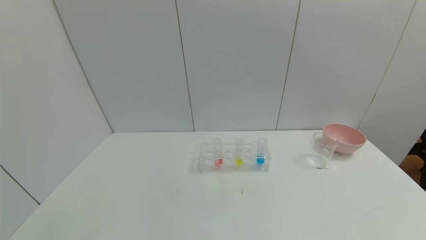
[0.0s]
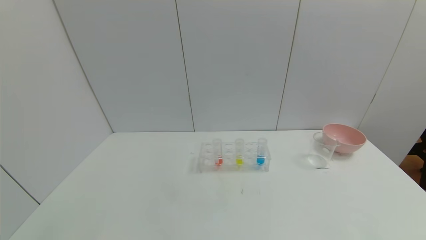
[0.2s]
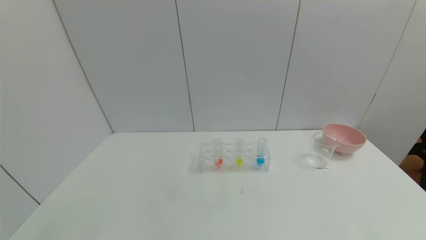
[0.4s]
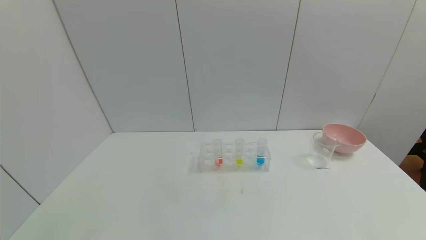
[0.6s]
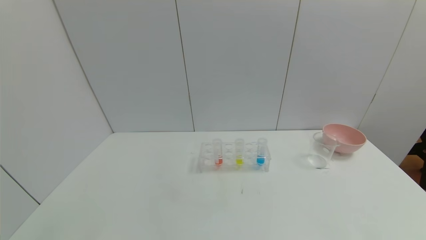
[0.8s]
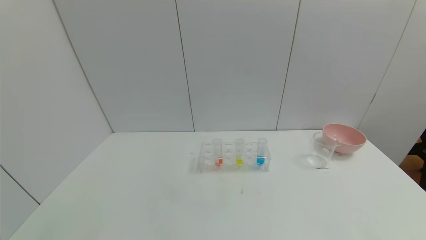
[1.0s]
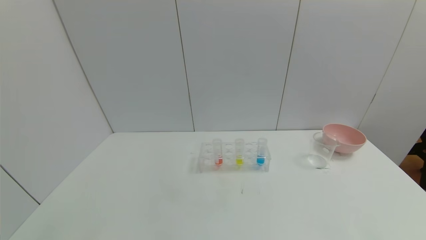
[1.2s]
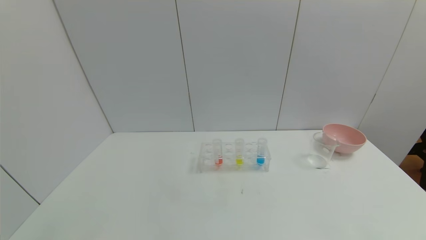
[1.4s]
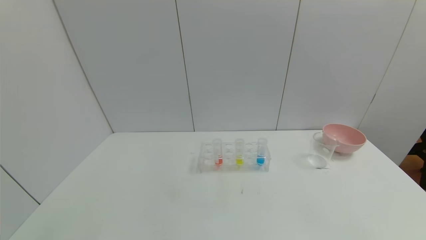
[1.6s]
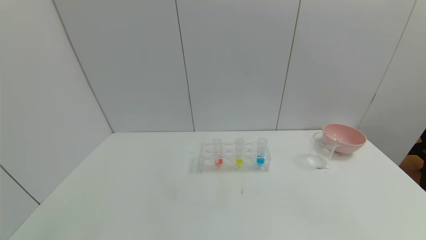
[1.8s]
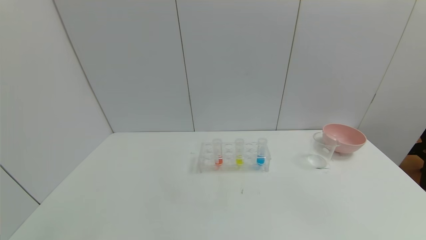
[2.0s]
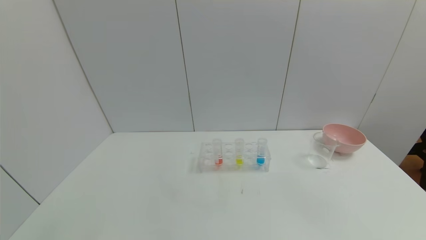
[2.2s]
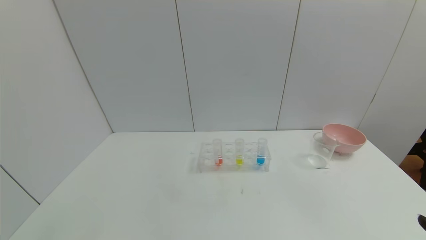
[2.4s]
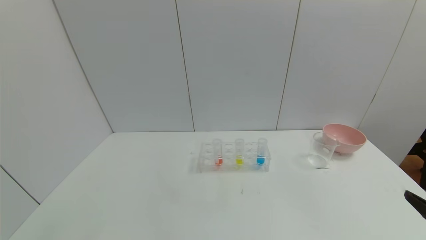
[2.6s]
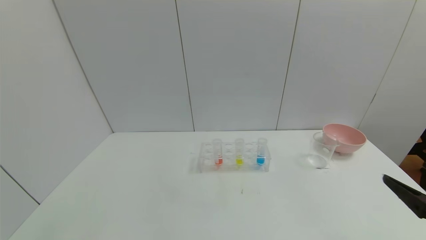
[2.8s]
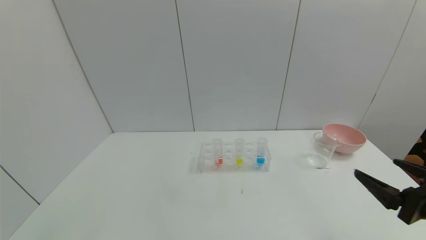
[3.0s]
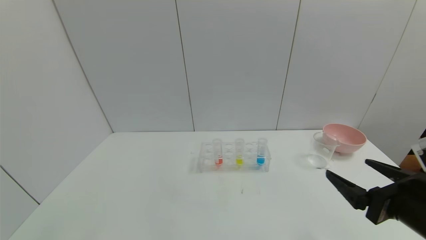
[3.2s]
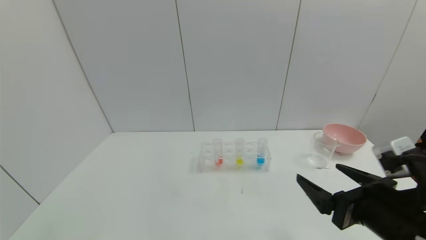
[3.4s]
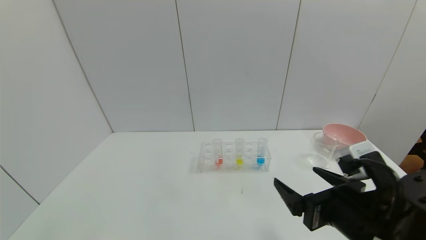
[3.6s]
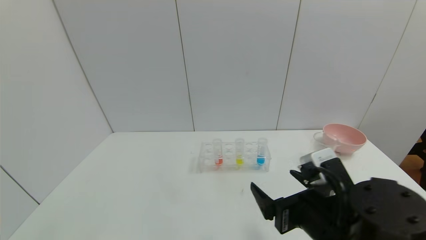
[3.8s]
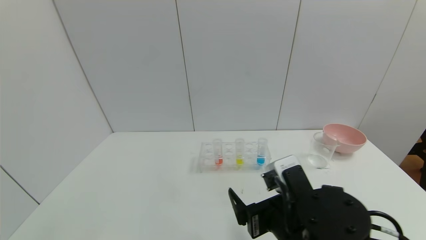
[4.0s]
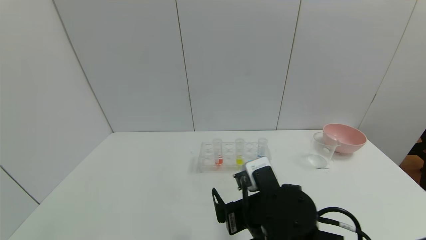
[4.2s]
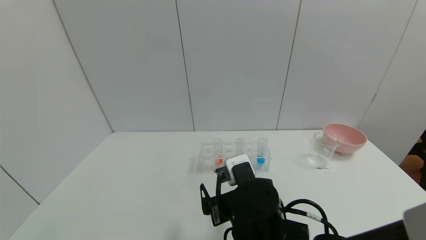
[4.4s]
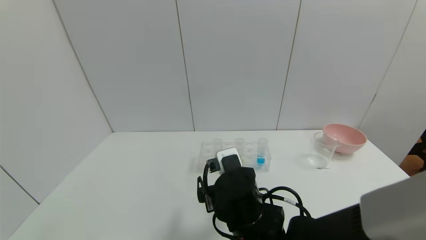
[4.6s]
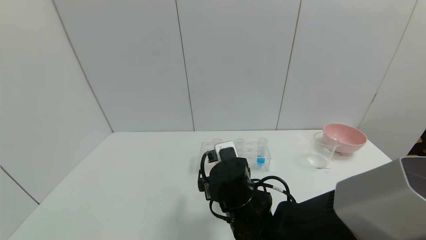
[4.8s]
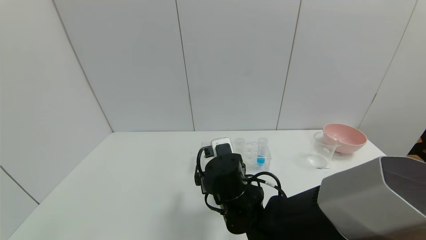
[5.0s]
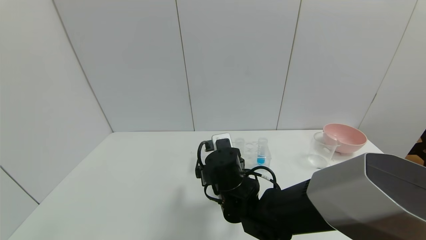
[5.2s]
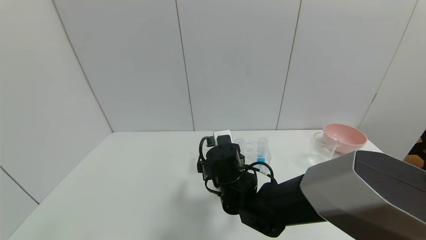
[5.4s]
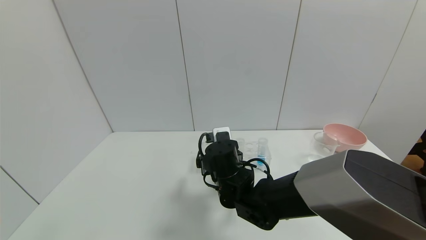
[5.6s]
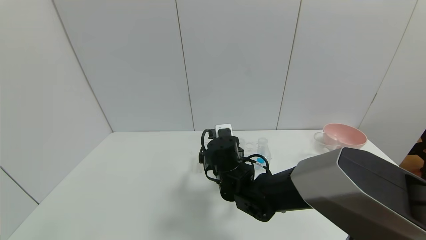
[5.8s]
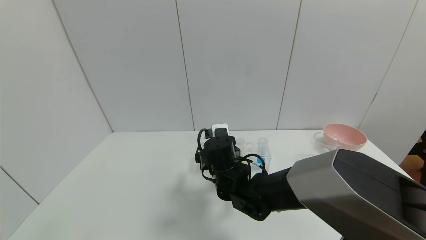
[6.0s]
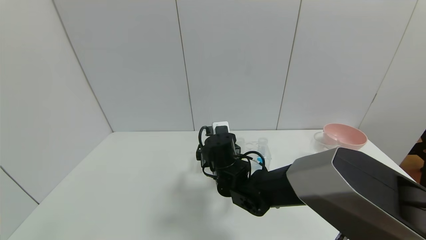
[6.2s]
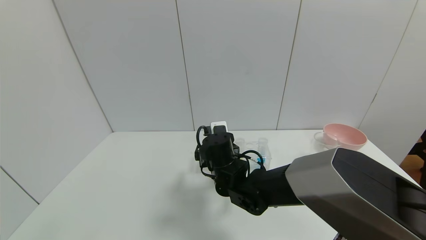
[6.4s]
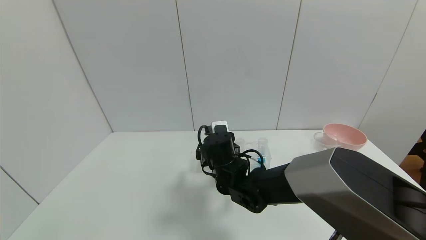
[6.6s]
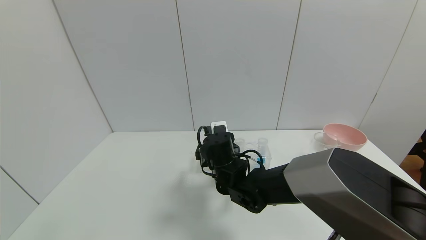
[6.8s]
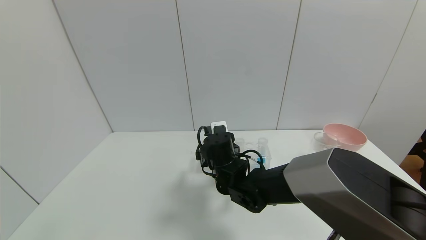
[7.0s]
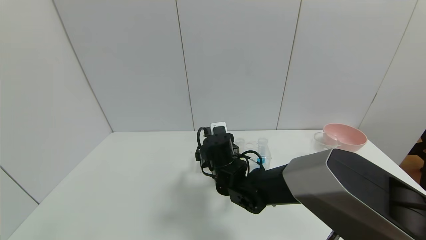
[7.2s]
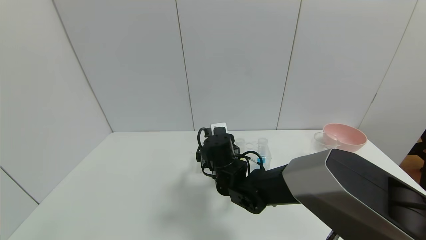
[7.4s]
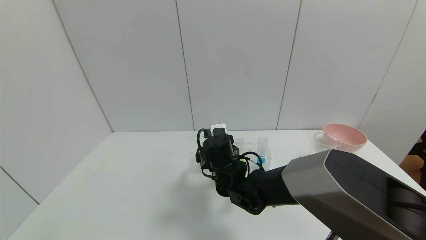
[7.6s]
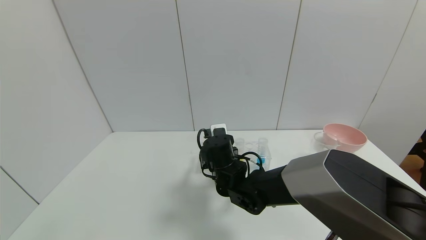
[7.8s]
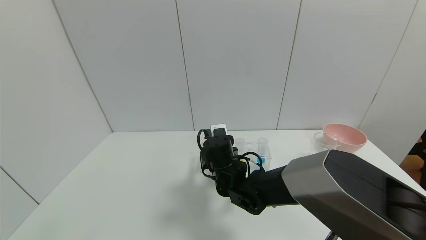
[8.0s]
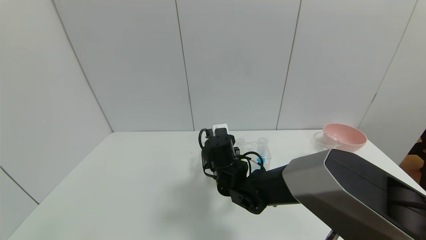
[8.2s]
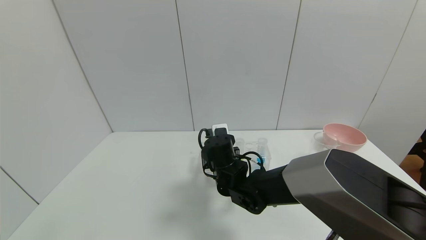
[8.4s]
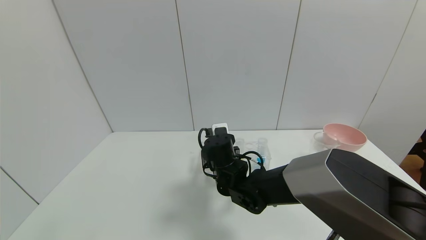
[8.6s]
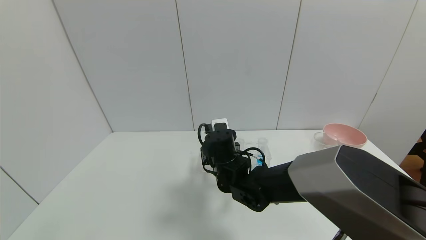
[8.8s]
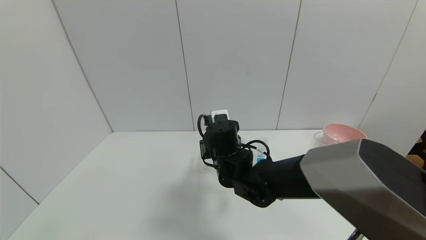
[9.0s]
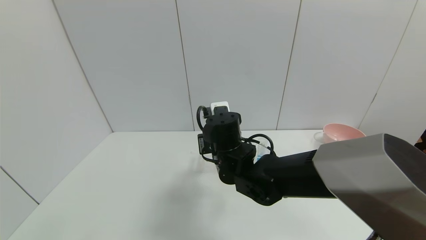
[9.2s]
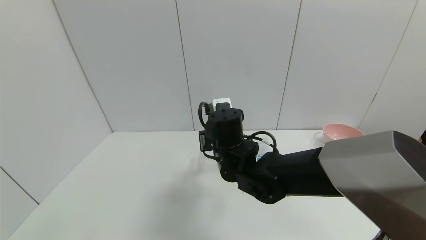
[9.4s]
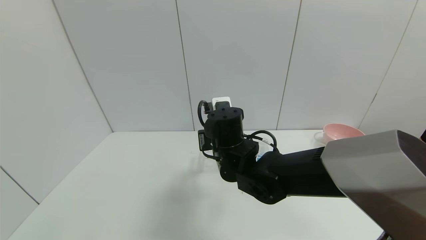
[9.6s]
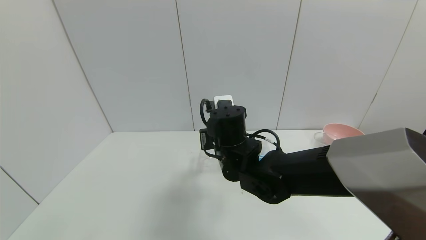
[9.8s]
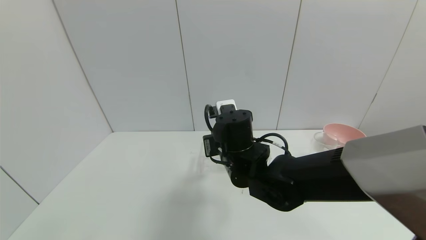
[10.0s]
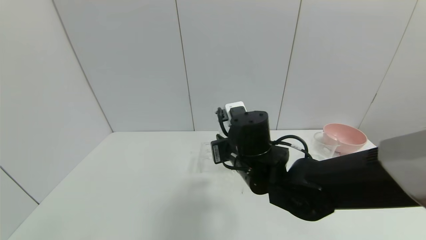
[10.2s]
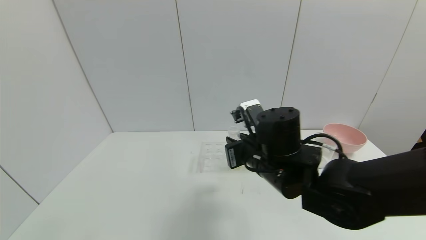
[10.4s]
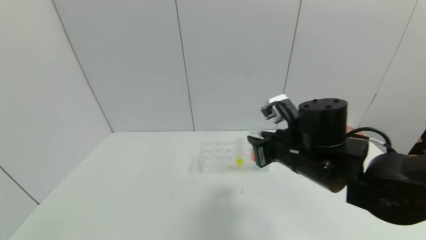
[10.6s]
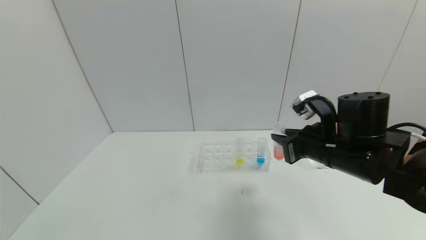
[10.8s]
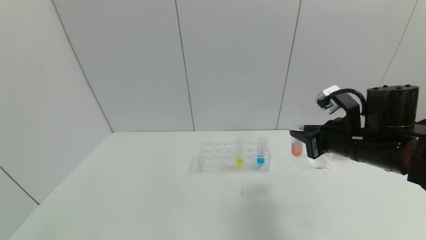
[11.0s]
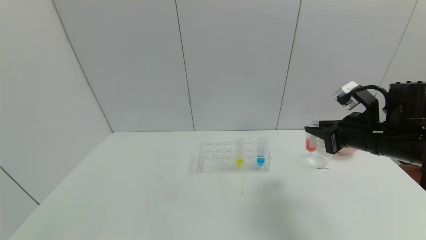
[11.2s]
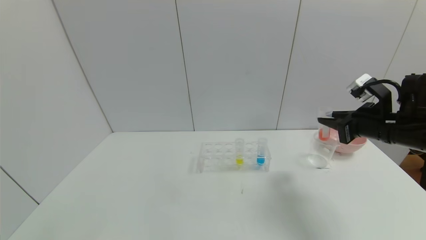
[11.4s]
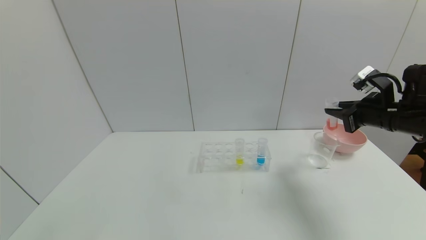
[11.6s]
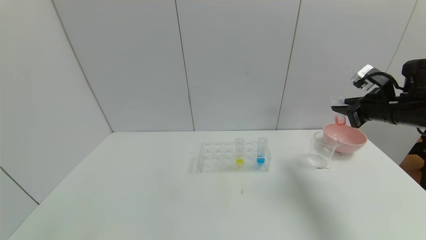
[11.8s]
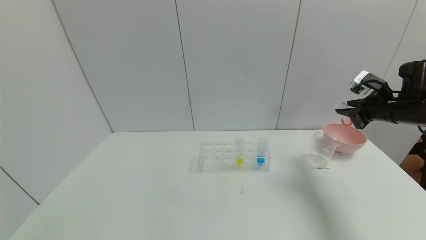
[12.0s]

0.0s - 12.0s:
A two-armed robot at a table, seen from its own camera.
Task of the whole recording: pick up the test tube with red pigment and the test tube with blue pigment by grippers and pour them into the container.
Step, 0.0s - 8.2s: Grasp the red reagent with the right gripper.
1.6s - 3.0s: The right gripper shifts roughly 15 cm forward.
3.0s - 4.4s: The right gripper travels to the left by roughly 25 cm.
4.4s - 6.0s: The right gripper shifts some 15 cm forward.
6.0s - 7.6s: Both grippers stay about where they are.
7.6s - 9.0s: The right gripper closes its fingers.
9.0s - 10.4s: The right gripper is displaced to the right, backward and upward by approximately 10 cm.
10.4s - 12.0s: The right gripper goes some 30 cm to the right.

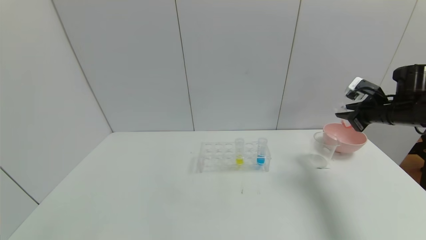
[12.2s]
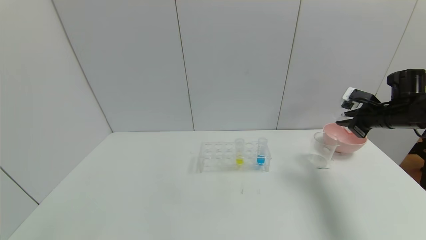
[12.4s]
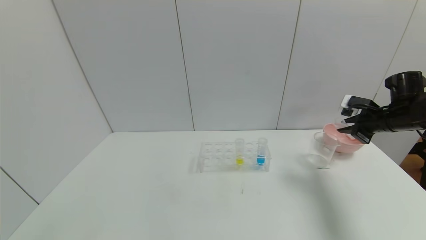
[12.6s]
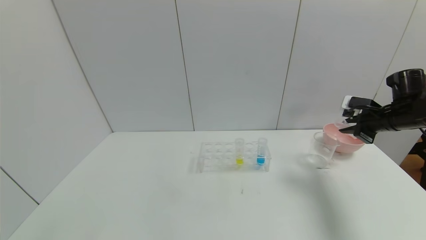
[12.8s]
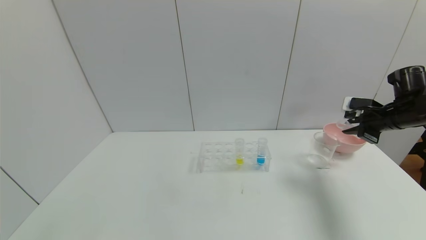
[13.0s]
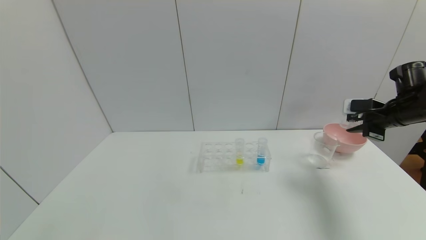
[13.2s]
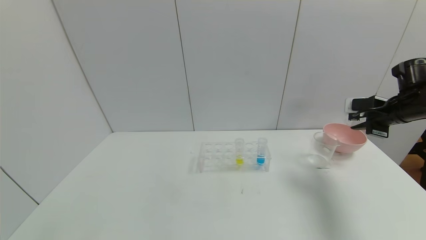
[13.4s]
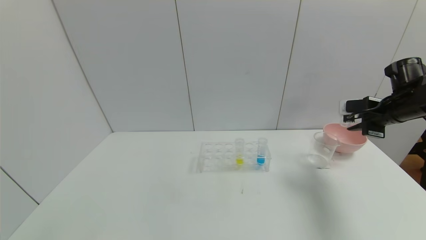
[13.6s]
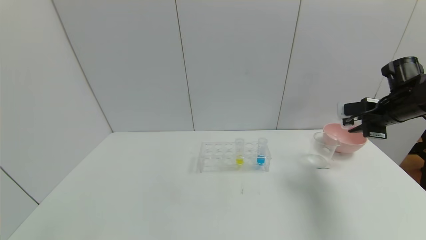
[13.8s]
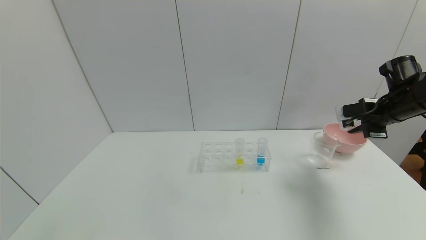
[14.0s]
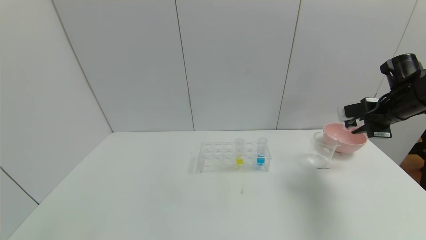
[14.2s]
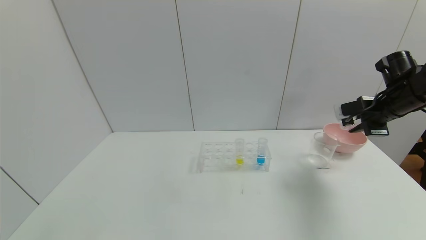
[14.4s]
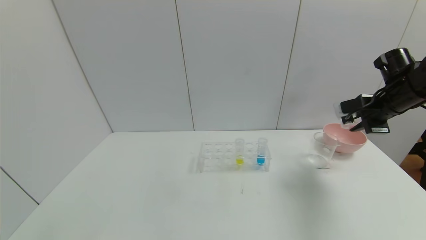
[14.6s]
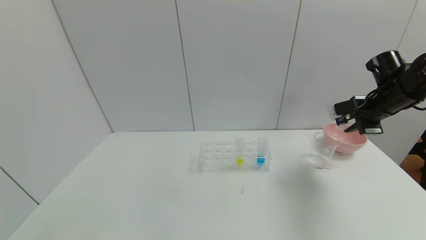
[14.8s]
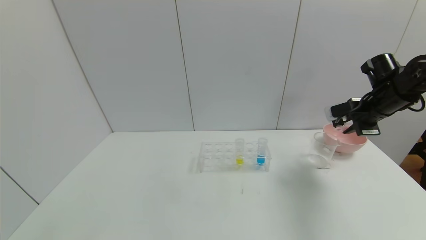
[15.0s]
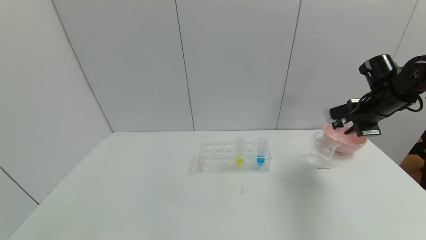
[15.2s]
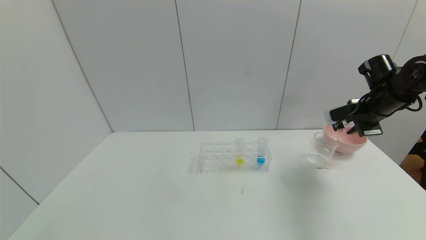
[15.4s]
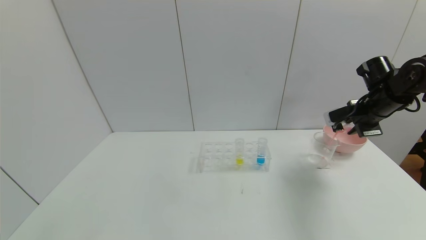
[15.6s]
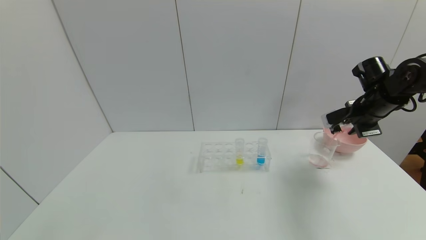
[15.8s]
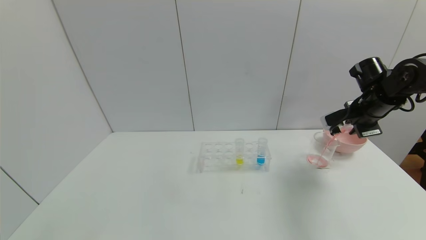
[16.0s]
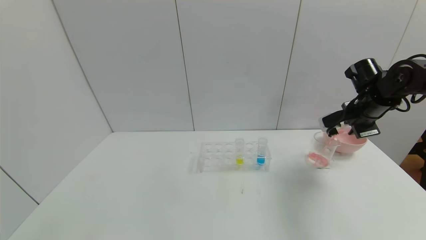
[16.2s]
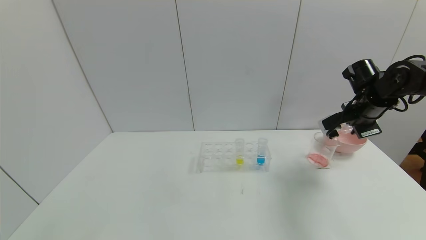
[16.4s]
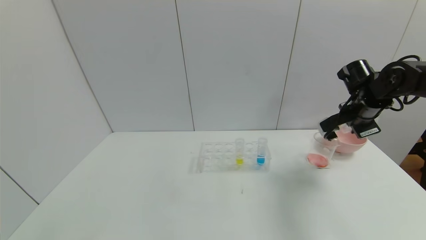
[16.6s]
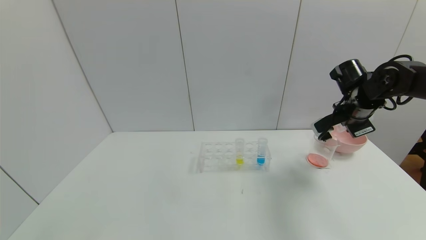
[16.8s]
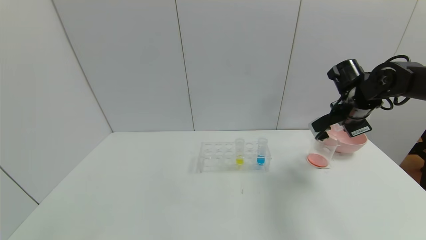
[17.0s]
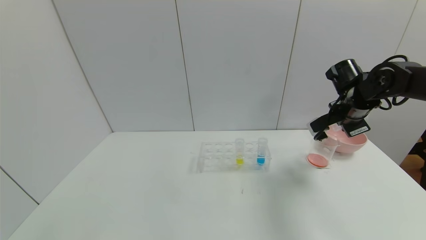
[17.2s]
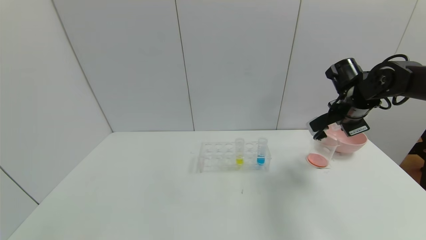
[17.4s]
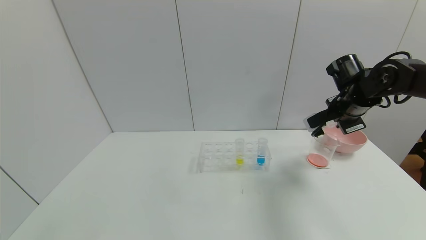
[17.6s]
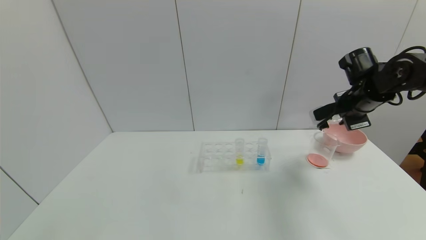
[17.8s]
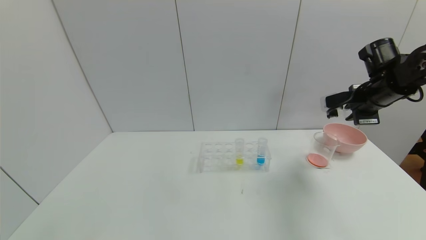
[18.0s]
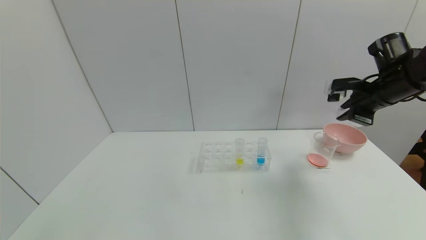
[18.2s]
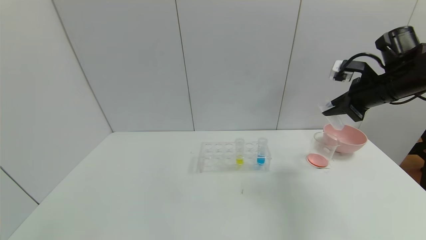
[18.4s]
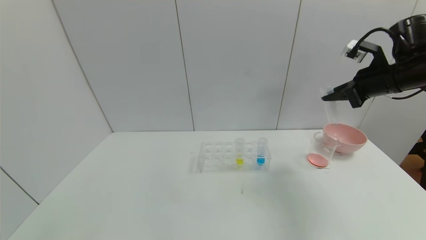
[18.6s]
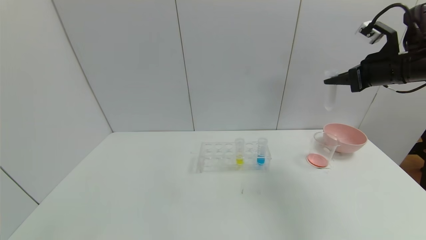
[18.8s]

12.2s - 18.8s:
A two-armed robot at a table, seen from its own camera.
Task of the whole recording: pick up the test tube with red pigment and the test tube with blue pigment by grippers and pour them into the container.
Step, 12.2s - 16.8s: Pour the red reagent into the graduated cylinder with the right gripper.
13.8s - 15.4s: The grippers stay close to where they were, moving slightly.
15.4s - 17.2s: The right gripper shifts about 5 cm to the left.
17.2s - 18.8s: The right gripper is displaced upward by roughly 10 cm.
